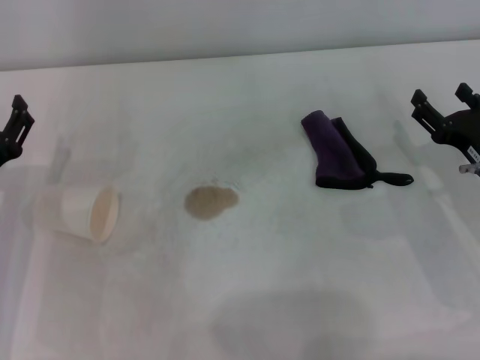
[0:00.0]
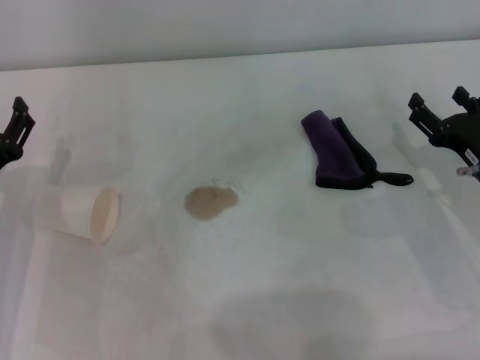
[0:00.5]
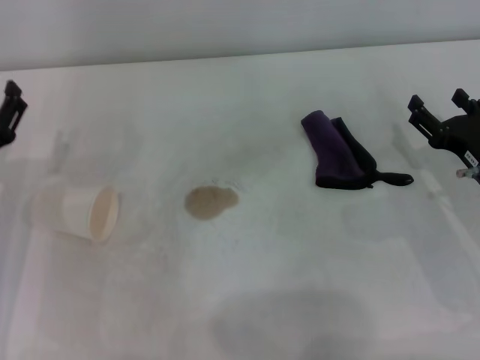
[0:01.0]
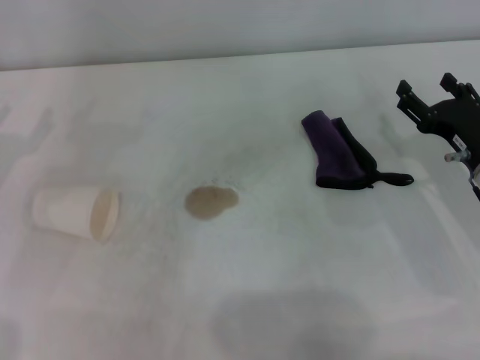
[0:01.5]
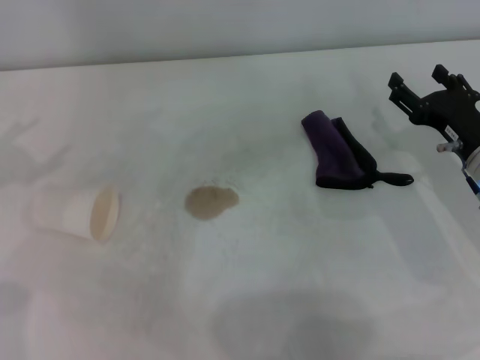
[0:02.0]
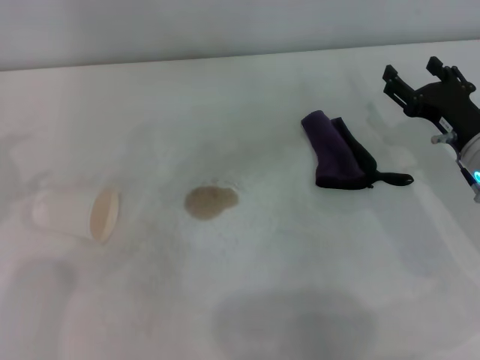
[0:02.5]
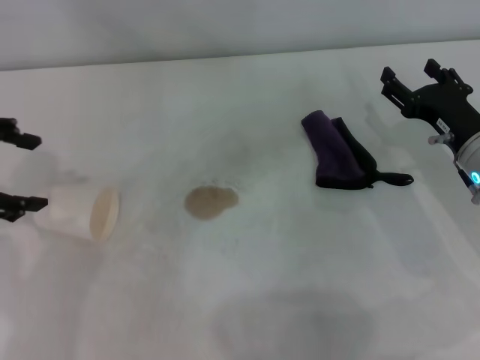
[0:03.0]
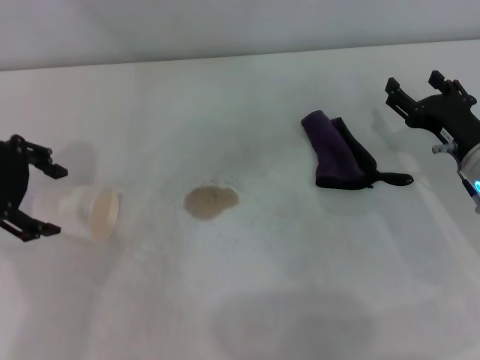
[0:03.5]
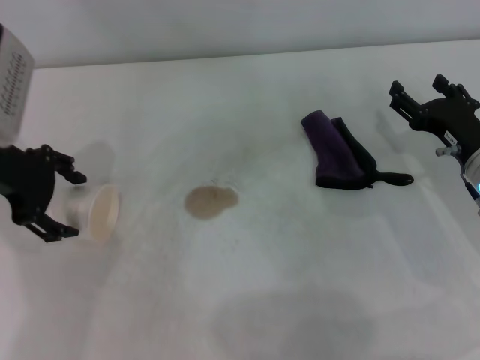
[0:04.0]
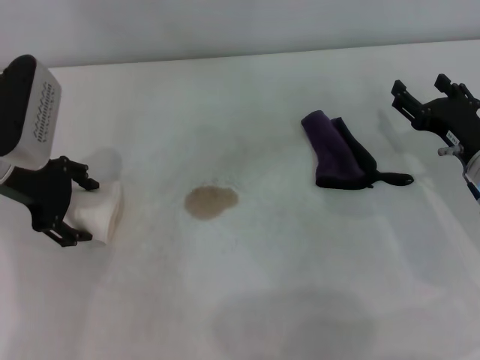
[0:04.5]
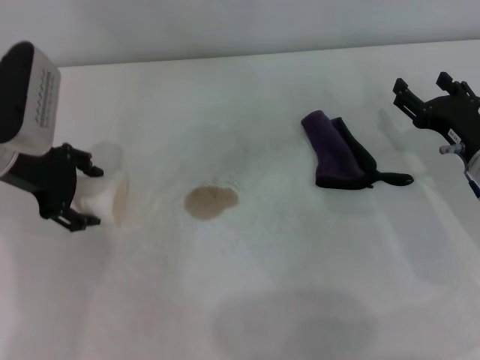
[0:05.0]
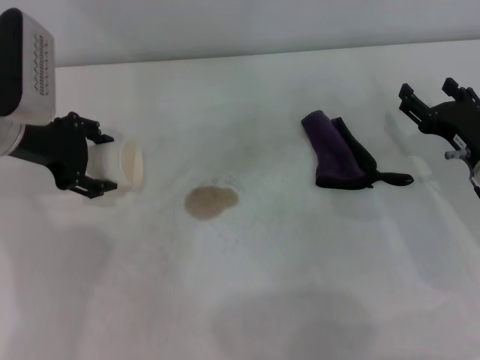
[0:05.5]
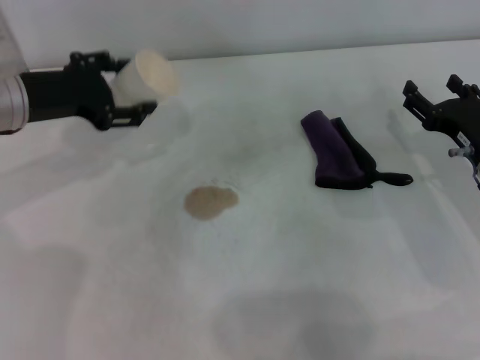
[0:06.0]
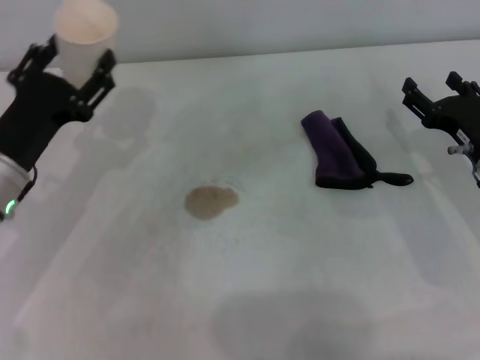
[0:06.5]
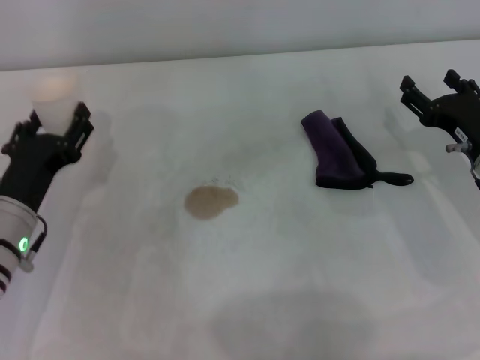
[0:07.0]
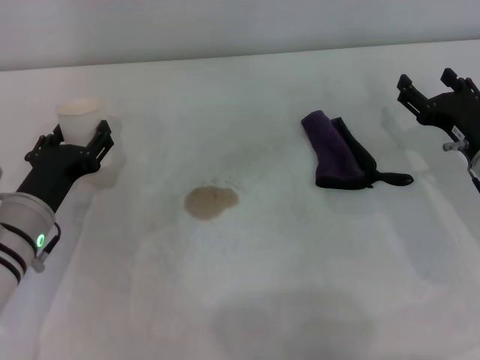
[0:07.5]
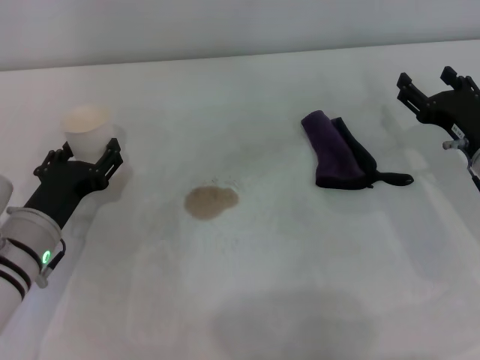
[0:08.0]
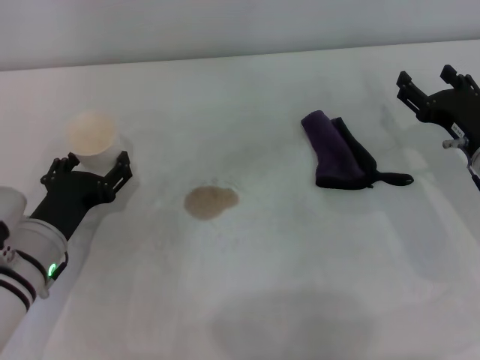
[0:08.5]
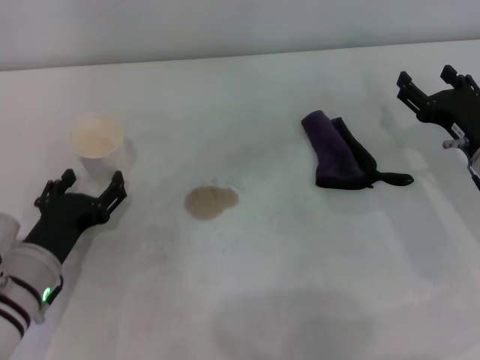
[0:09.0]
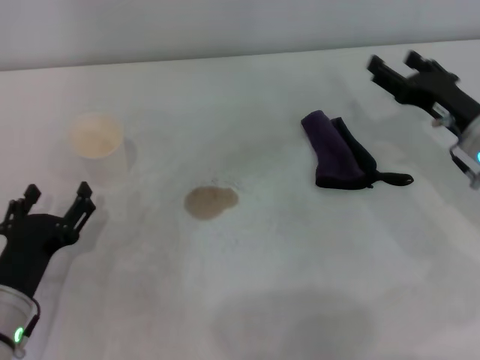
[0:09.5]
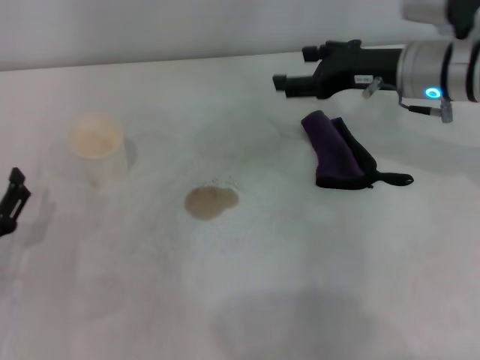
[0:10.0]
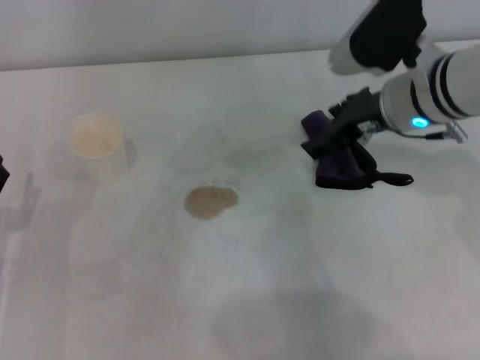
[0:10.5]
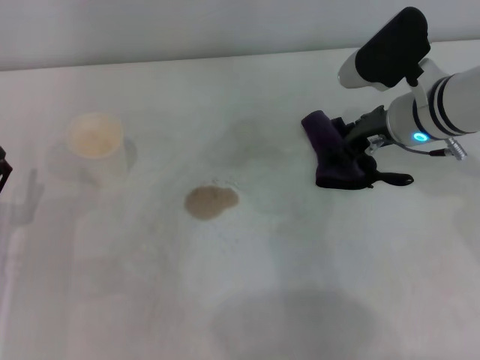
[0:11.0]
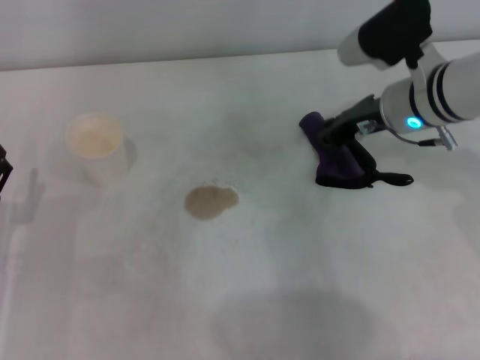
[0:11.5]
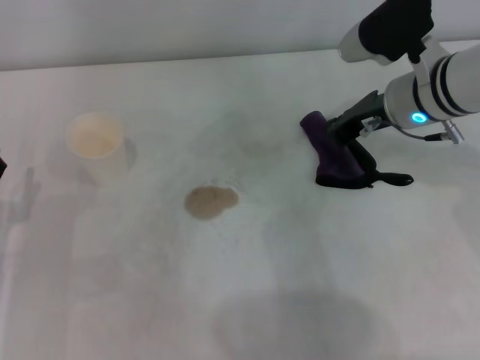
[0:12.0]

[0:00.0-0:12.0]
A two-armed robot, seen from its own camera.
Step, 0:00.0 to 0:04.0: Grasp the paper cup with the left gripper.
Step, 0:04.5 to 0:08.0: Stand the paper cup upright with the left gripper.
Step, 0:09.0 to 0:11.0: Grasp the rag with the right gripper.
0:00.0 to 0:02.0: The left gripper moves upward and to the left, some 20 cm.
0:02.0 to 0:04.0: The left gripper is displaced to the right and forward by some 15 cm.
0:06.0 to 0:08.0: The left gripper heads downward and backward, covering roughly 15 cm.
0:08.0 to 0:10.0: The right gripper is displaced upward, forward and to the left by some 15 cm. Meanwhile the left gripper shifts about 10 cm backward and to the left.
0:10.0 to 0:12.0: The right gripper closes up.

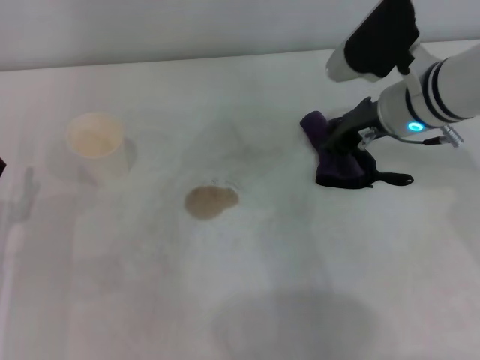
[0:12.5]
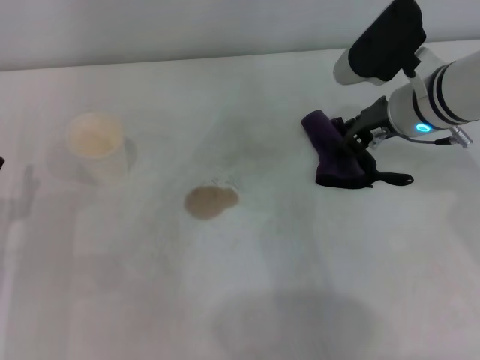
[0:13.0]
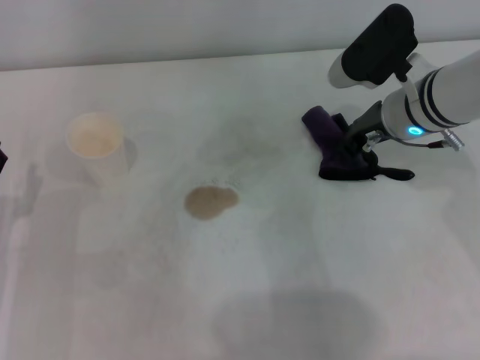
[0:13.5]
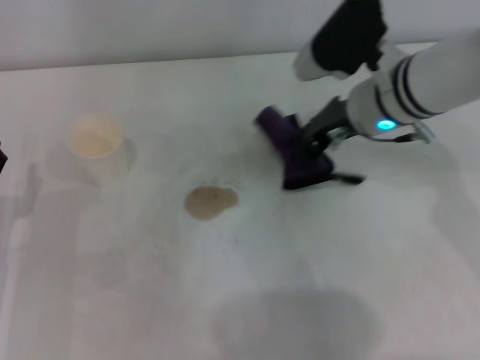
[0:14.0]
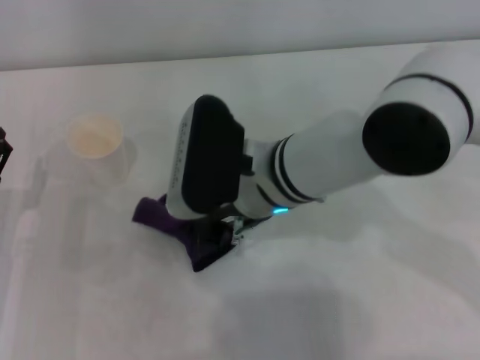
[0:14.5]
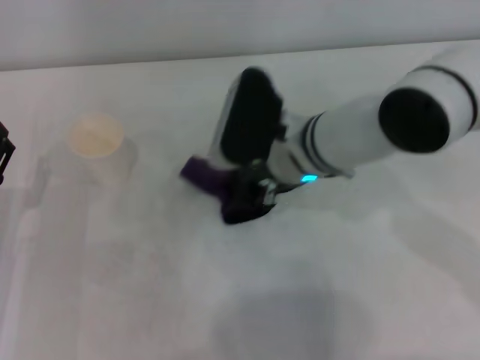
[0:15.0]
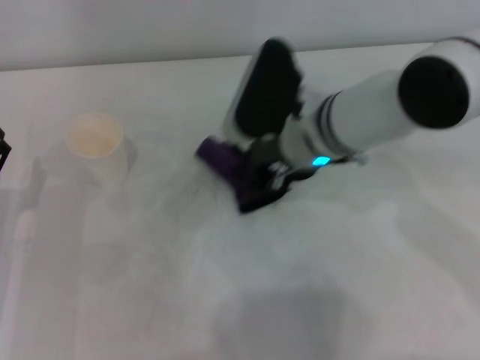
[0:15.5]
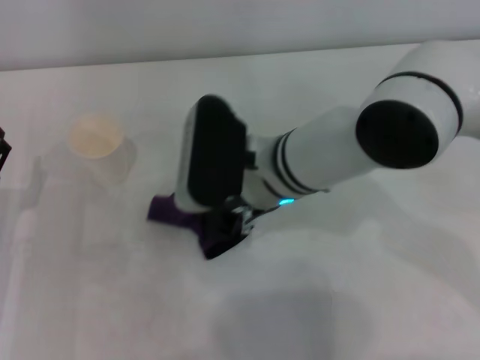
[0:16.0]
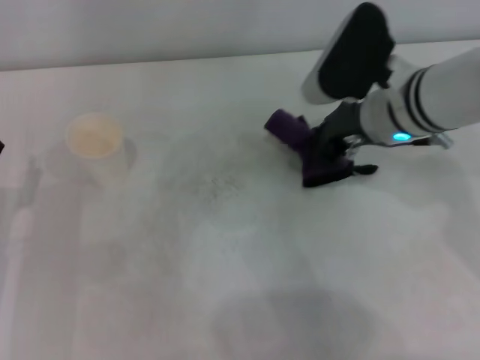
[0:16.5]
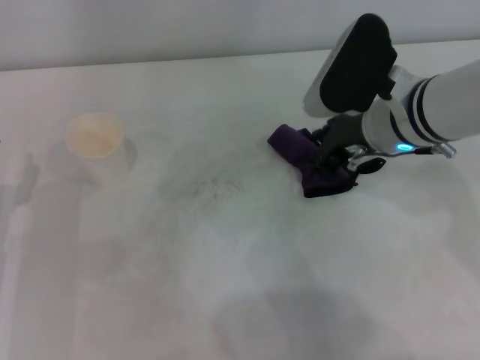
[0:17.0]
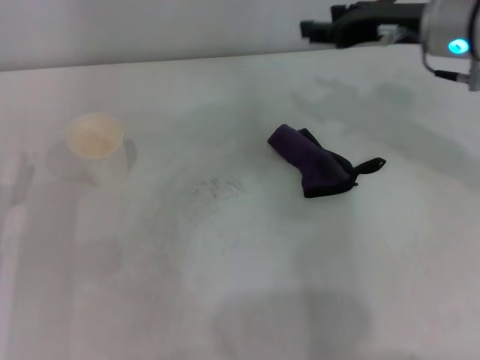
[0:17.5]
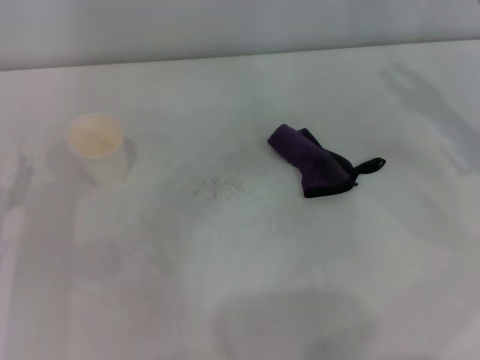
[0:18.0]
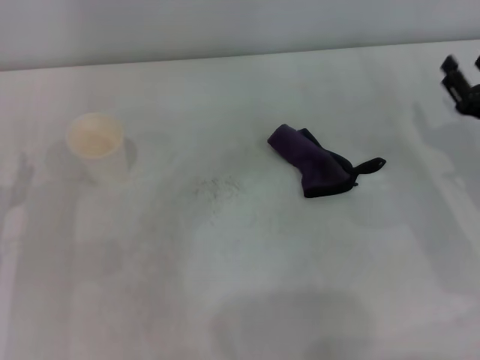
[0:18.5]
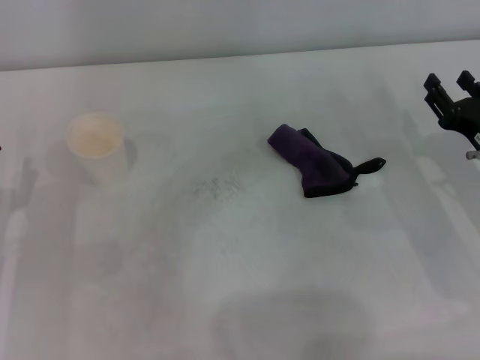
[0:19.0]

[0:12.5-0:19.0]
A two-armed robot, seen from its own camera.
Step, 0:12.5 to 0:16.0: Wipe the stains off the table with the right gripper.
0:12.5 to 0:14.5: The right gripper heads to the left and backward, covering about 15 cm, and opens, then closes again.
0:14.5 to 0:17.0: The right gripper goes left and right, some 15 cm each way, reversing 2 times.
0:17.0 to 0:19.0: The right gripper heads to the right, downward and backward, covering approximately 20 cm, and opens up.

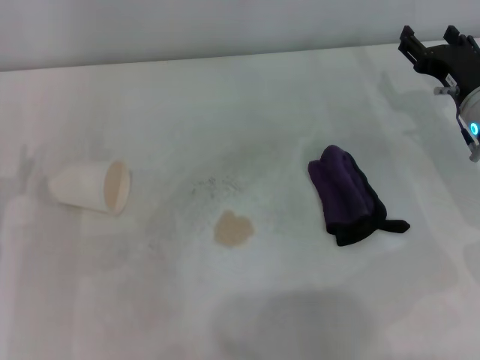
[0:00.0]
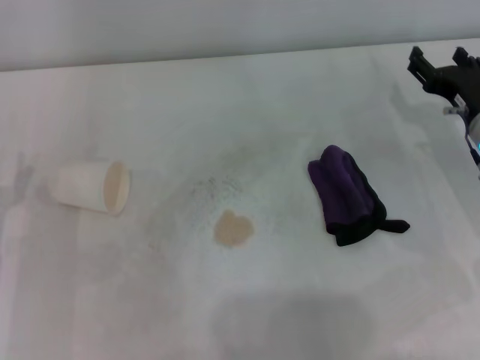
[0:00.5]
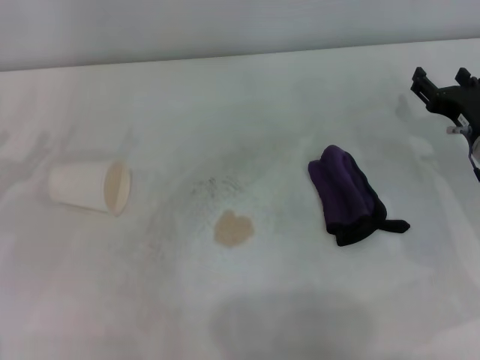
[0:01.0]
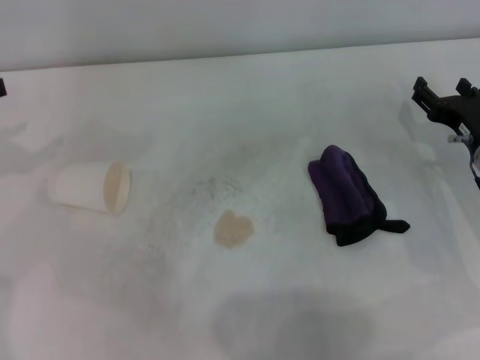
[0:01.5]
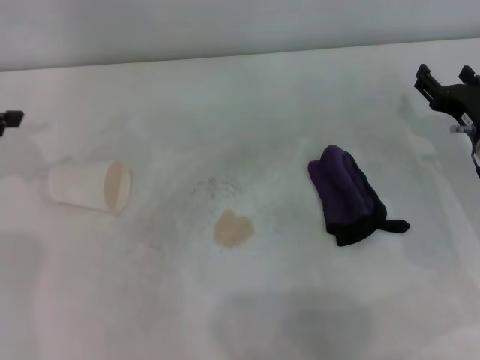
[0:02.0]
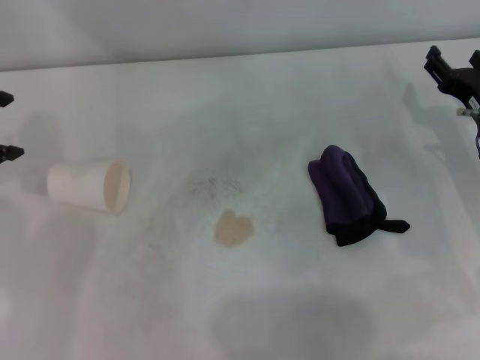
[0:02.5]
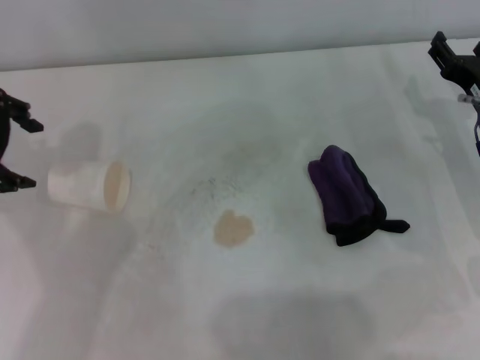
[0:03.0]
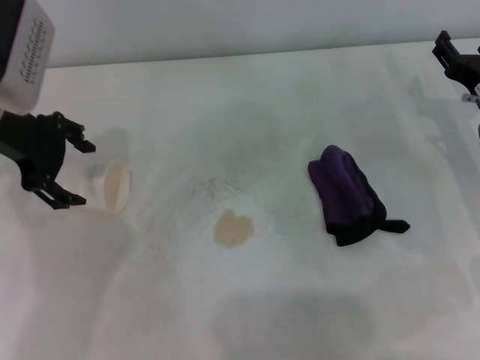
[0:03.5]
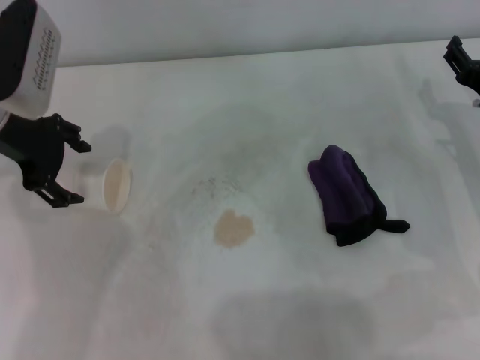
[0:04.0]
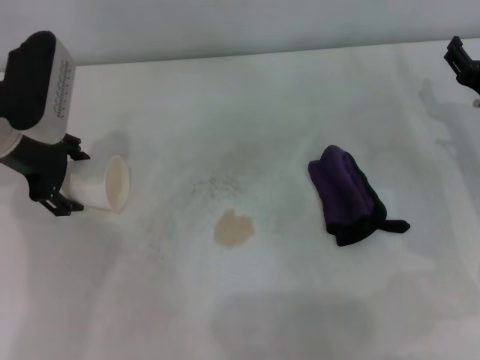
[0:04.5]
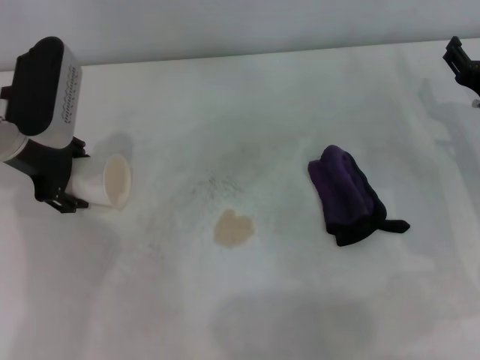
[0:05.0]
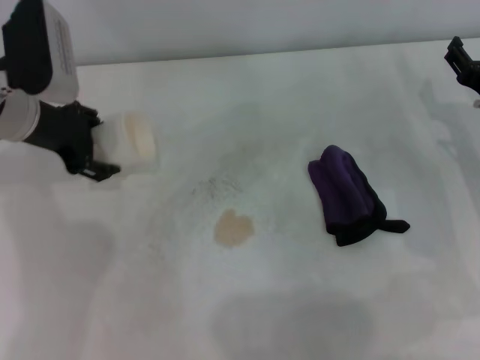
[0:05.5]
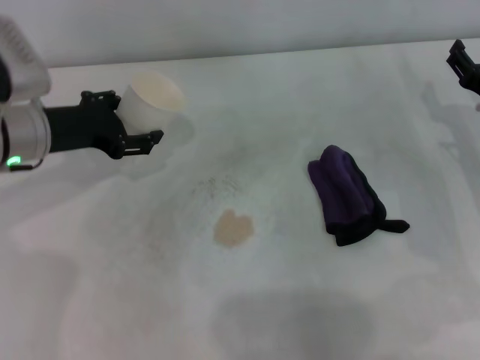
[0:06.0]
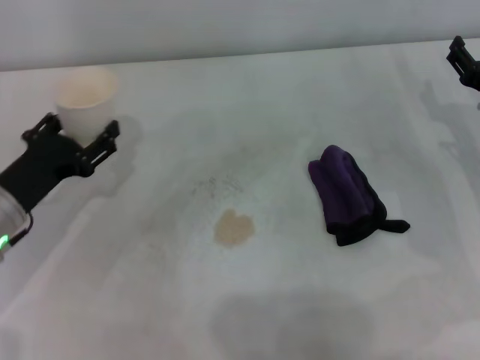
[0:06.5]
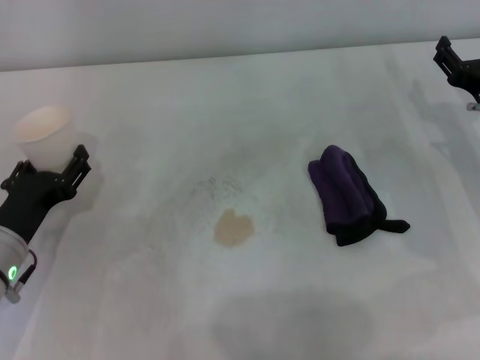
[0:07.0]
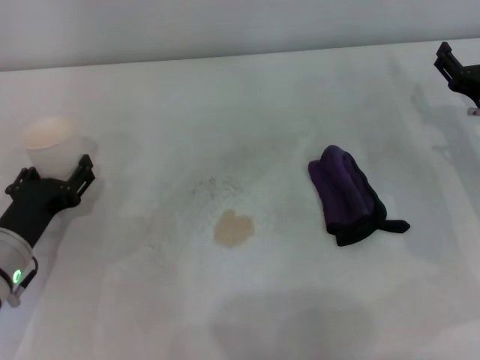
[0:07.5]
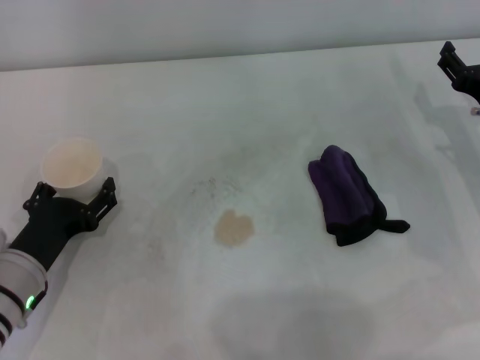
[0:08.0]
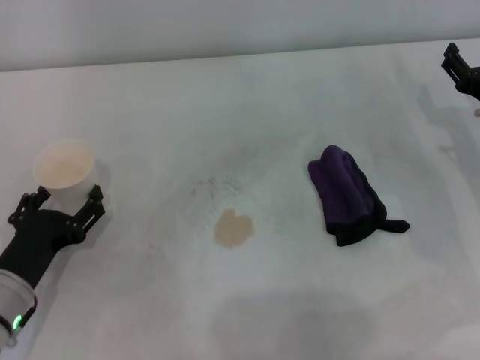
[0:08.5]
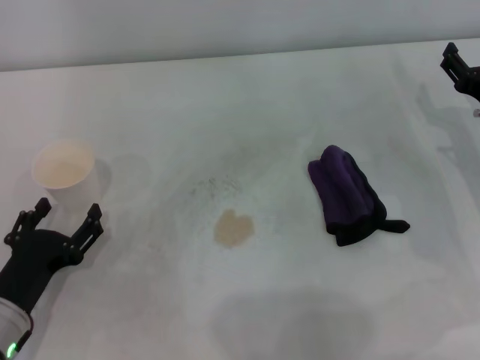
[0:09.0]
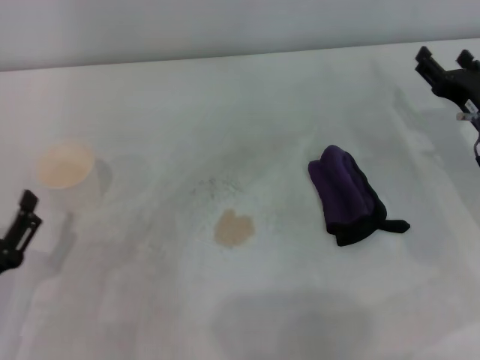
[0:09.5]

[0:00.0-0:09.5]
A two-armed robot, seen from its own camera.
Step, 0:00.0 to 0:04.5: Grasp the paper cup with the left gripper.
Step, 0:05.0 to 0:08.0: Stand the paper cup upright with the left gripper.
0:02.0 to 0:04.0: The left gripper shifts approximately 10 cm to the right.
0:04.0 to 0:05.5: The left gripper closes up.
0:05.5 to 0:07.5: The left gripper moves backward and downward, some 20 cm.
0:07.5 to 0:09.5: The left gripper shifts about 10 cm backward, and opens.
